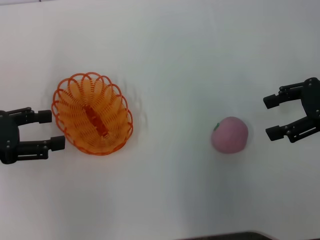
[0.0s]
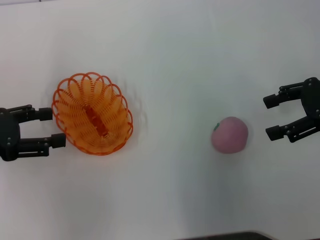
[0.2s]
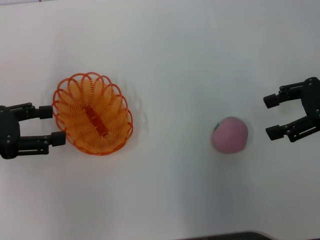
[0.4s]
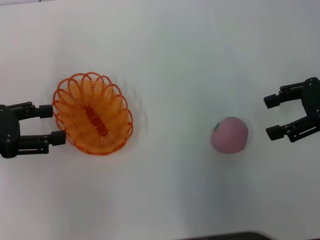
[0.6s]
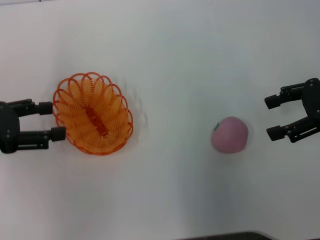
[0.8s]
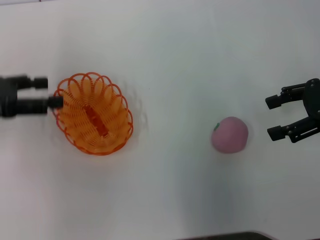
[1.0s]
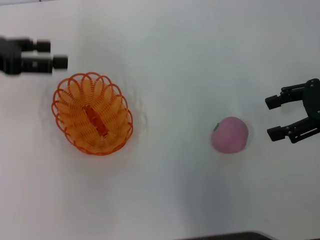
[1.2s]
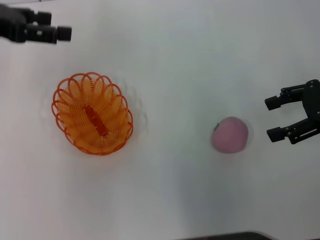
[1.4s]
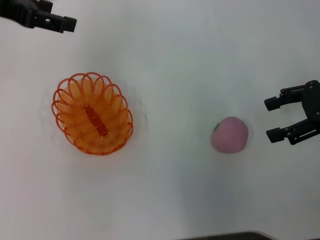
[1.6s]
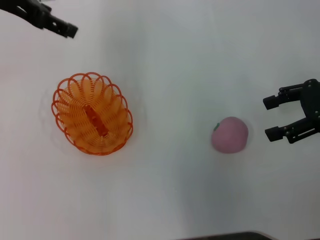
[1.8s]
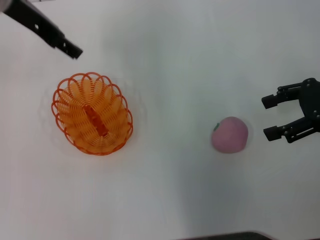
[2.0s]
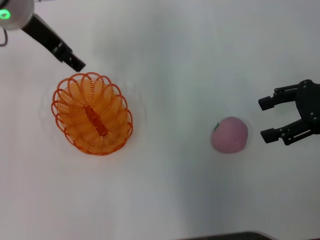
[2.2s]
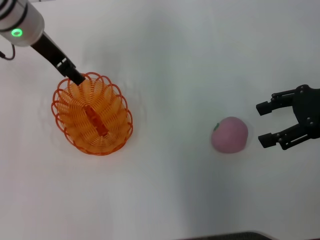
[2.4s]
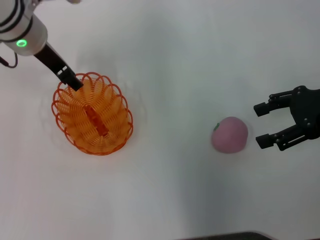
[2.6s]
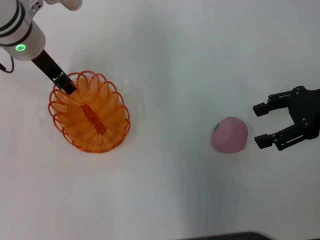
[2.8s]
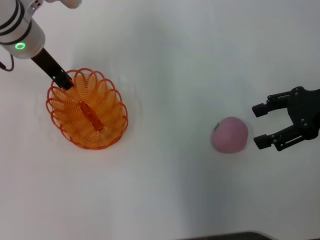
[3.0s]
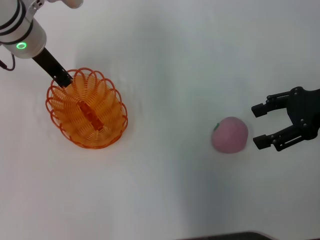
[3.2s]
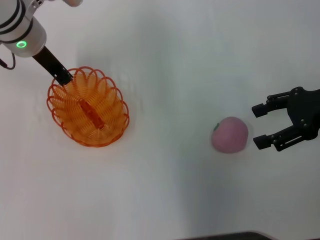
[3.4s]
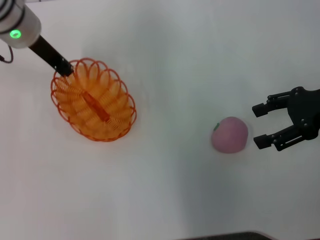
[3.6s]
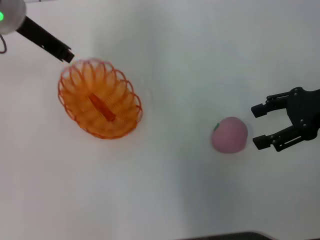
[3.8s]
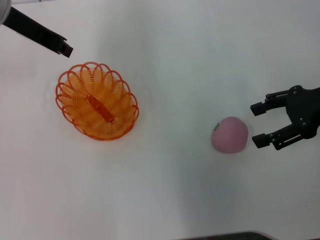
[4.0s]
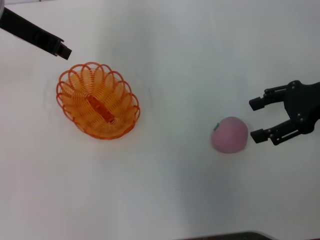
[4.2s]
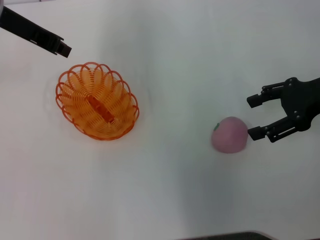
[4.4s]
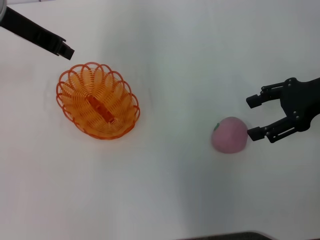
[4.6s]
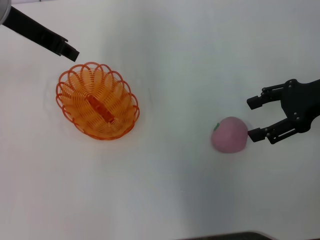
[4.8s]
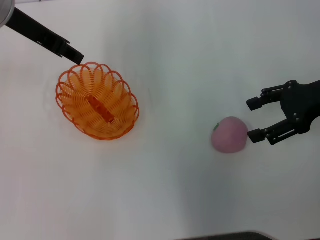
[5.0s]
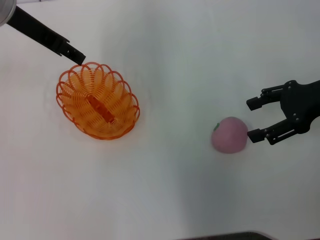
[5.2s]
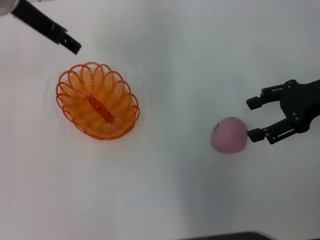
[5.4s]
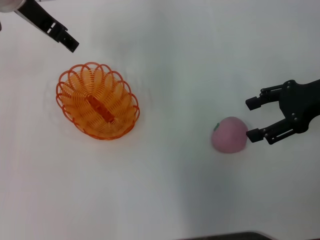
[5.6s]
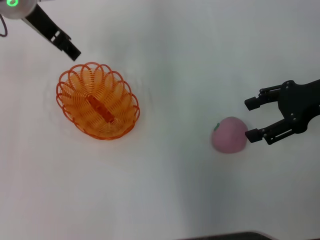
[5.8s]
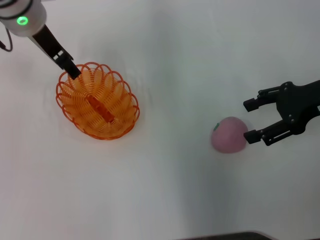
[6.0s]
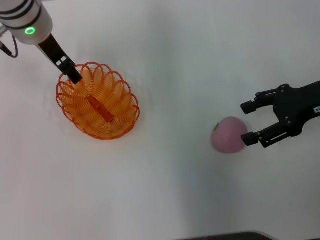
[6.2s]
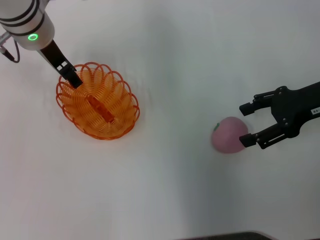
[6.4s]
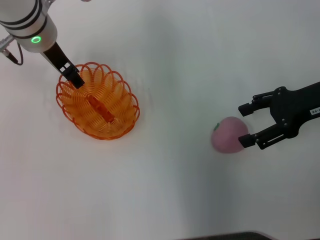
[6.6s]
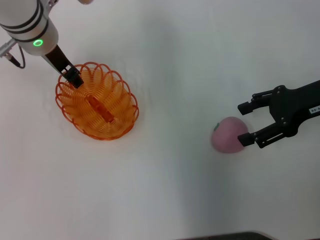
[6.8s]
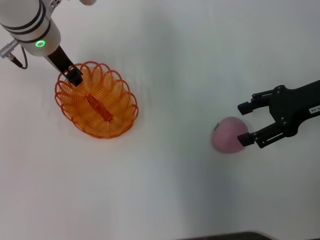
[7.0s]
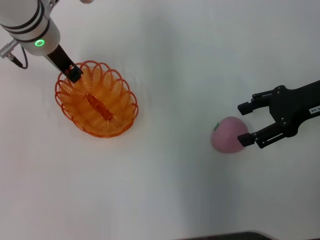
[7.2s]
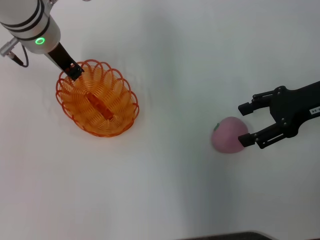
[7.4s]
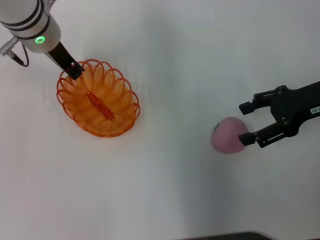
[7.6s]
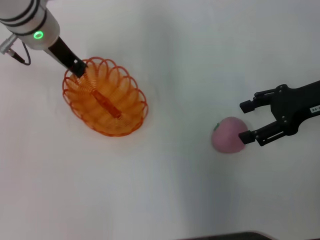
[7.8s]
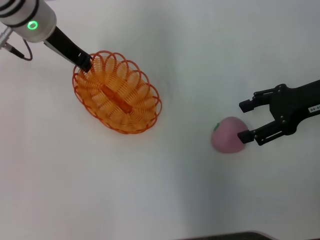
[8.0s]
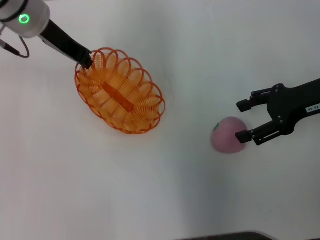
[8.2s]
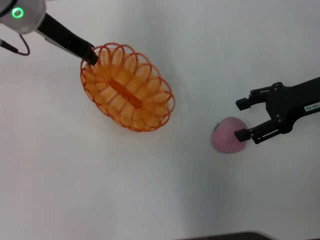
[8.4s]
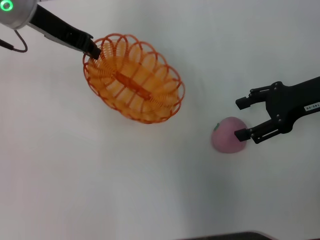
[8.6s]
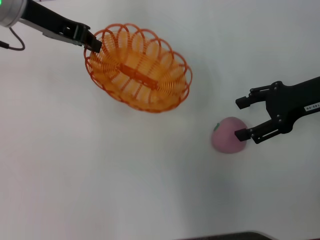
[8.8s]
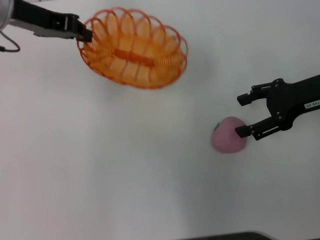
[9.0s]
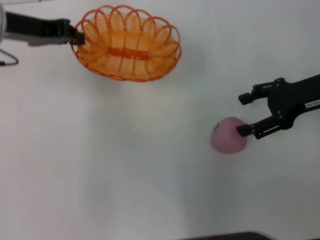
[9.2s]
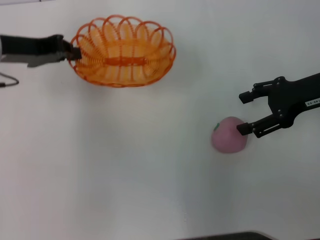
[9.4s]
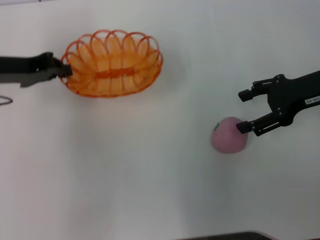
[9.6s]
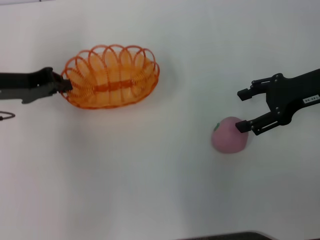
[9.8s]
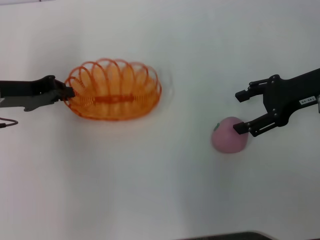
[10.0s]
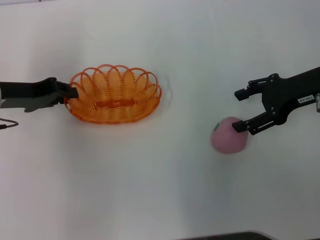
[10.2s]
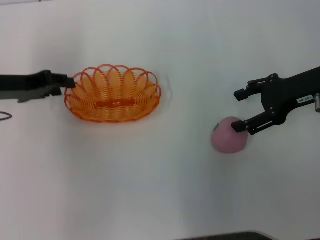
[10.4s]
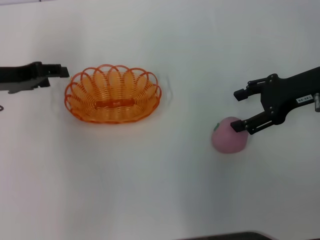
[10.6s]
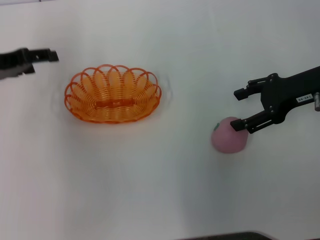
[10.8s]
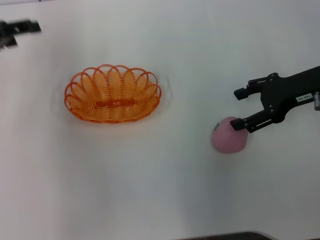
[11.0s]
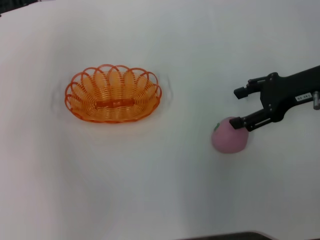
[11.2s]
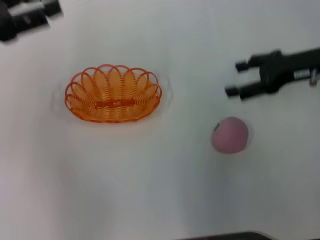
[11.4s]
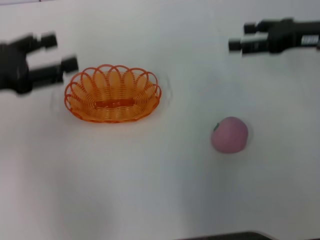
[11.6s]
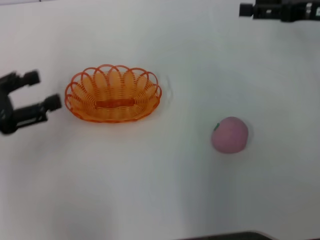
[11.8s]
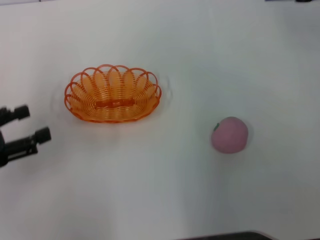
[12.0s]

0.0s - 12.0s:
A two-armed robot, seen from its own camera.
Step, 0.0s - 8.2s: Pick up the basket with the left gripper.
Step, 8.4s - 11.0s: Place the basket in the center of view with the left gripper.
0.0s - 1.6s: The left gripper travels forward, upward and to the right by about 20 cm.
1.6s - 3.0s: The left gripper shifts roughly 15 cm downward and to the right.
3.0s - 4.4s: The left gripper travels upward by approximately 5 cm, and closes up.
4.4s - 6.0s: The left gripper travels to the right by approximately 5 cm, and opens its fingers.
6.0s - 7.6s: The left gripper closes.
7.6s - 9.0s: The left gripper shifts approximately 10 cm to the left and upward.
9.0s - 10.4s: The left gripper goes approximately 10 cm downward, backward and to the left.
10.4s - 12.0s: The left gripper heads backward and to the left, covering some 15 cm, and opens up. Meanwhile the right gripper heads upward, covering about 10 cm.

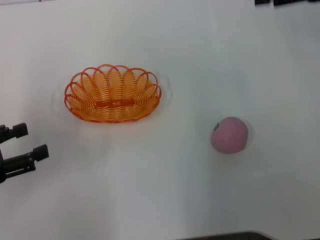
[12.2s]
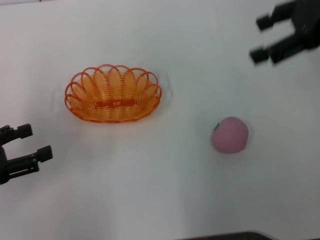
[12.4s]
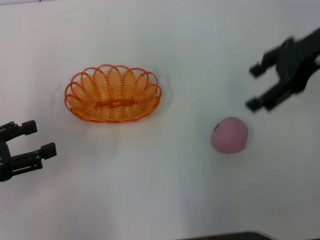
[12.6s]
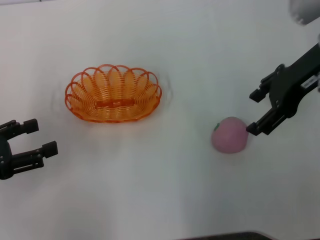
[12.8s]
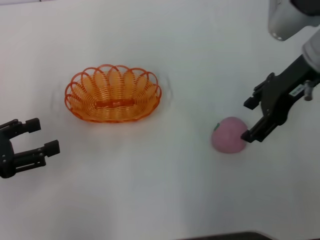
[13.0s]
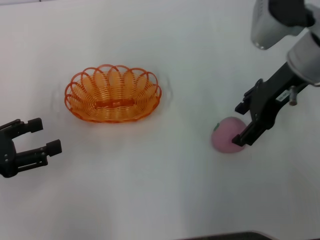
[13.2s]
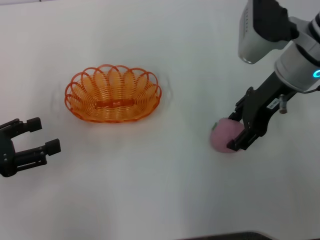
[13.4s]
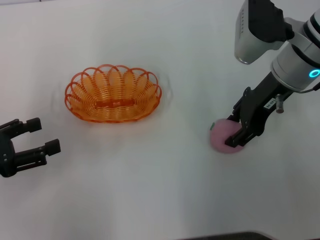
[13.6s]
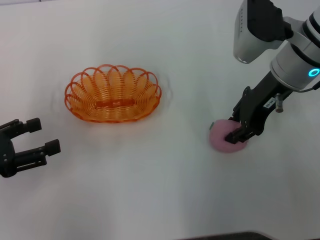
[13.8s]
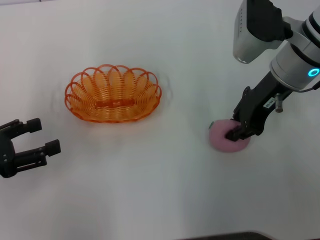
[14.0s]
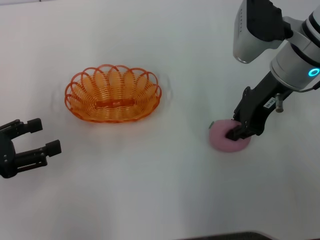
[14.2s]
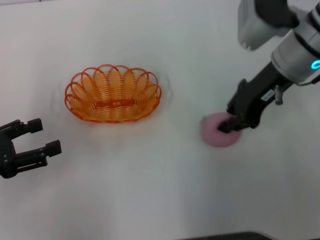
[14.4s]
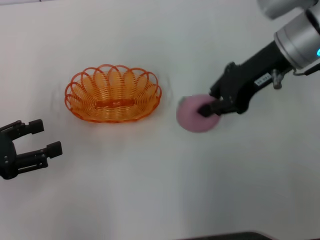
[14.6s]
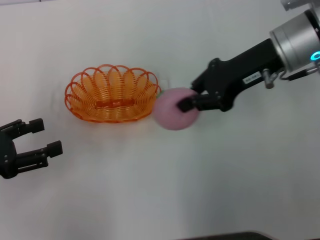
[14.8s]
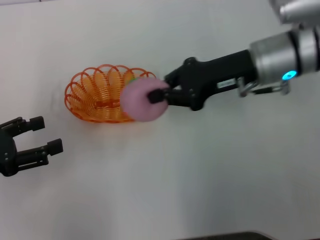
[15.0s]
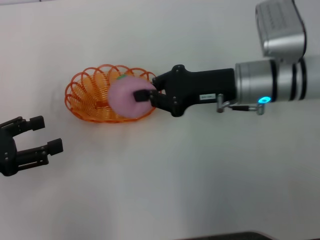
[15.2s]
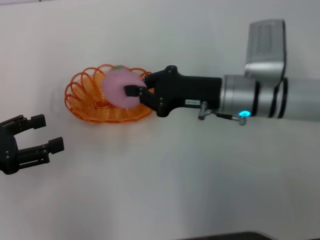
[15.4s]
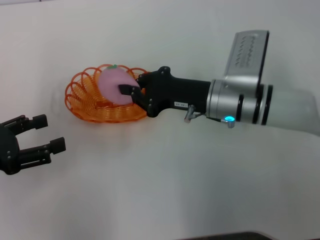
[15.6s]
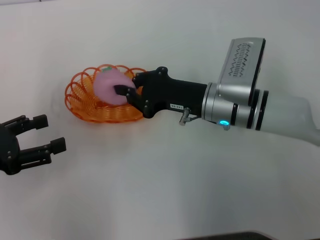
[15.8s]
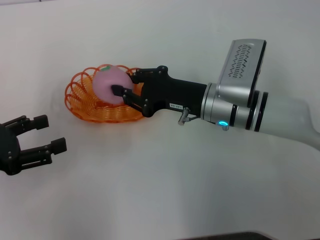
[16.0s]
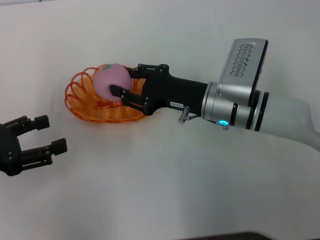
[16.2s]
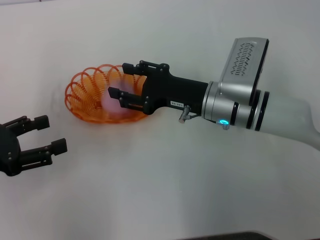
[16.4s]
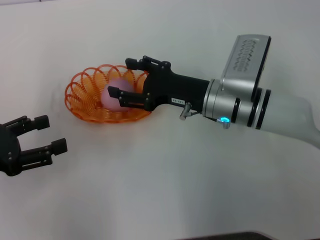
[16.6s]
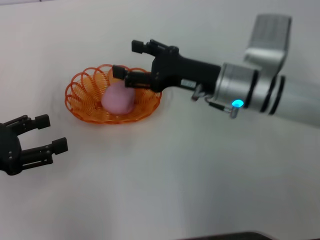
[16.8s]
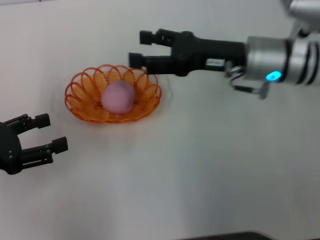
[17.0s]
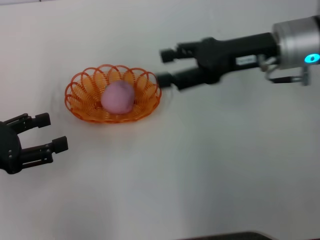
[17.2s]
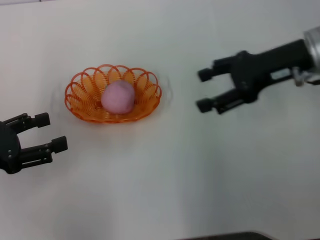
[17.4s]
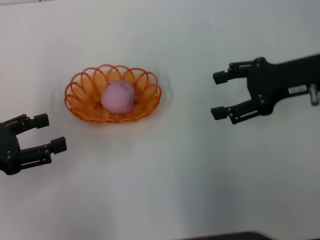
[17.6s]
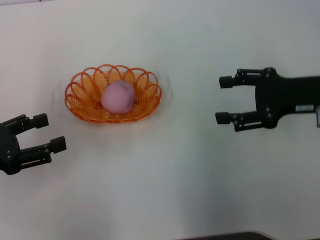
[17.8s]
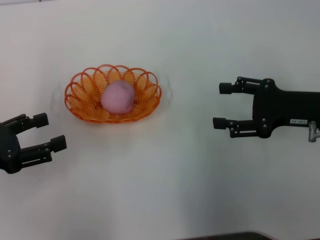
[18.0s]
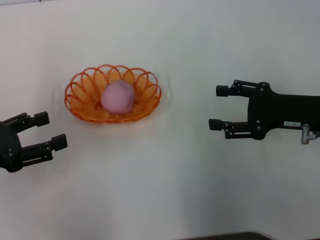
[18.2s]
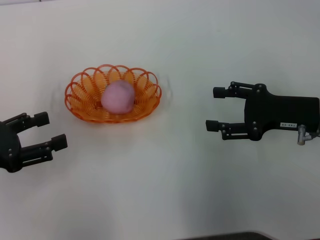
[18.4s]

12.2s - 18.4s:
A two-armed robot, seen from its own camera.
Step, 12.2s - 14.8s: Pick up the peach with the right gripper.
Step, 15.2s - 17.2s: Place the peach into the basket with the right gripper.
12.2s - 13.8s: The right gripper goes approximately 15 cm to the left and downward, and closes its fingers.
13.8s - 15.4s: The right gripper goes about 10 cm downward, and closes its fingers.
15.4s - 16.8s: The right gripper opens up.
16.8s - 18.4s: The right gripper goes approximately 15 cm to the right and backward.
